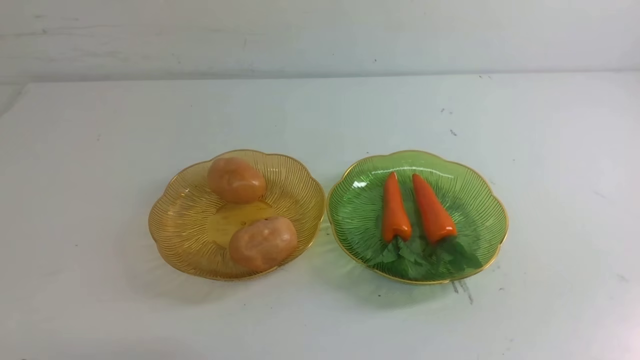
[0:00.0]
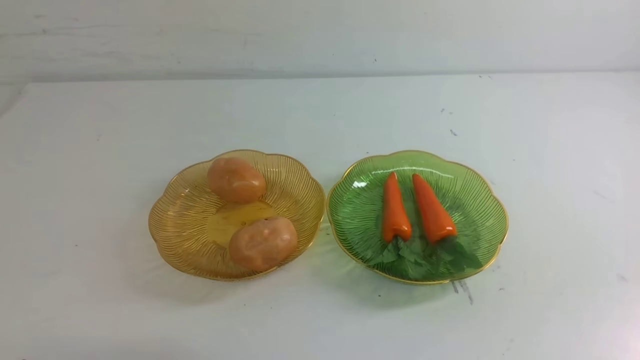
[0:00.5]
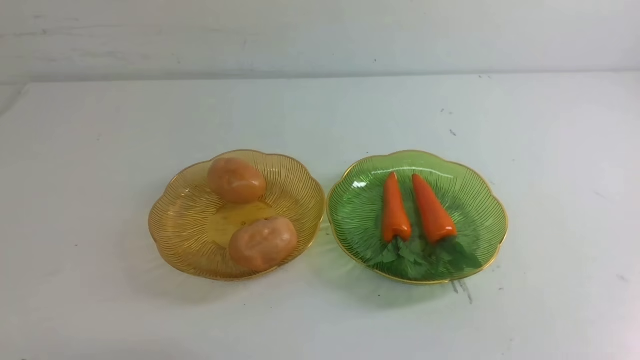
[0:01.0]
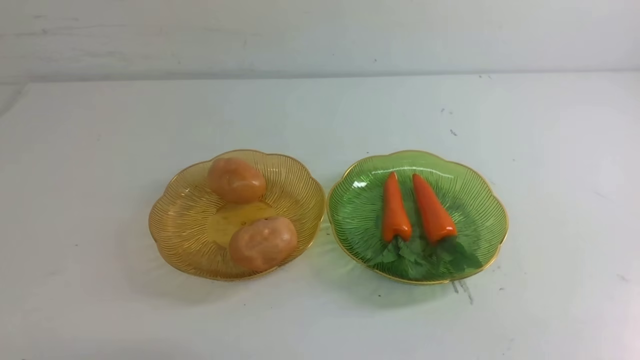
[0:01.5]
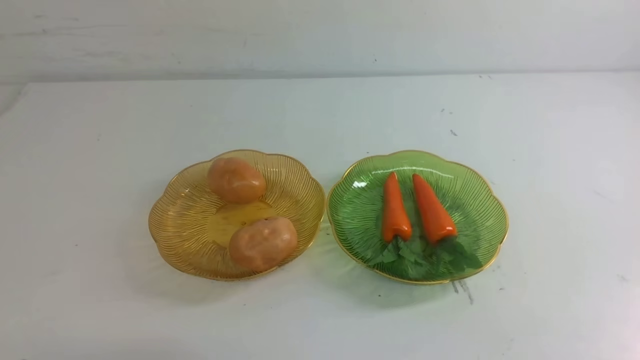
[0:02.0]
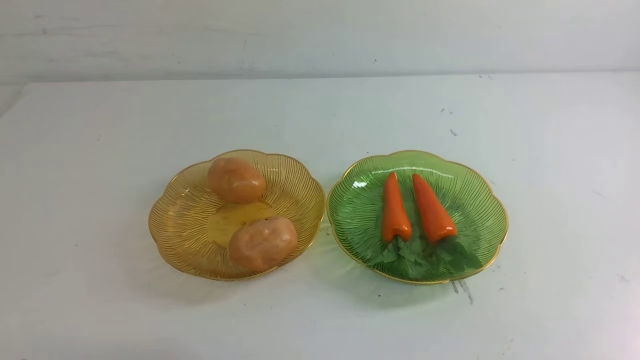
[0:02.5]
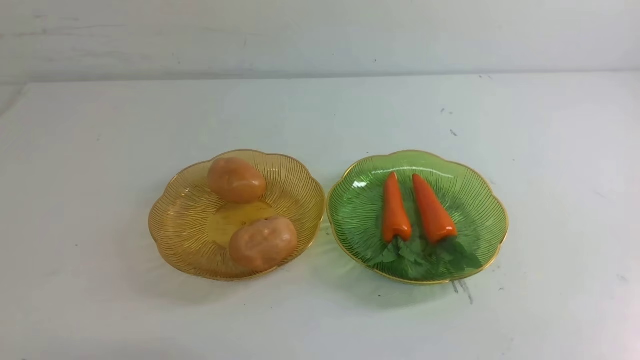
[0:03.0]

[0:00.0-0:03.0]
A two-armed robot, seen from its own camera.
0:01.5 to 0:03.0: The two grippers keep their place.
